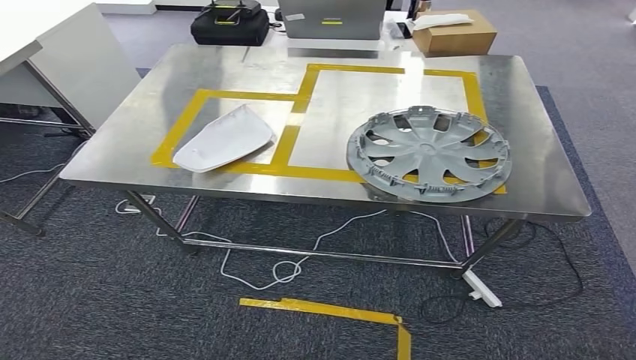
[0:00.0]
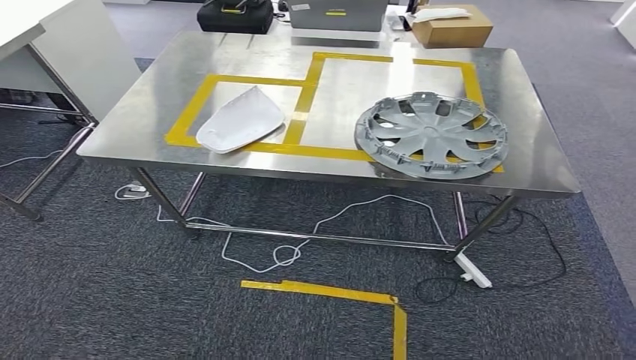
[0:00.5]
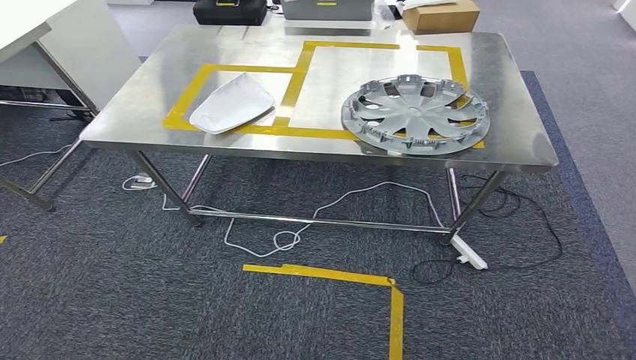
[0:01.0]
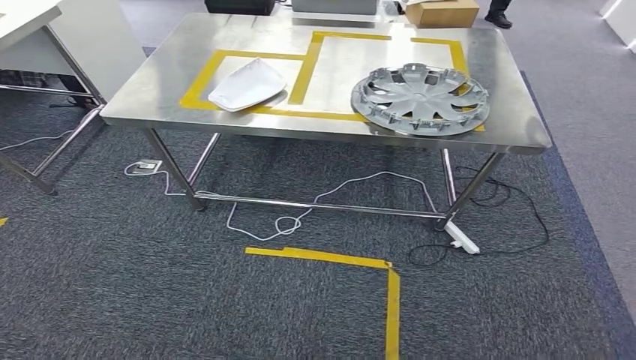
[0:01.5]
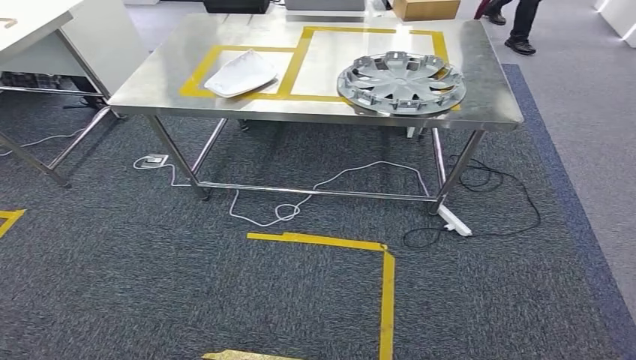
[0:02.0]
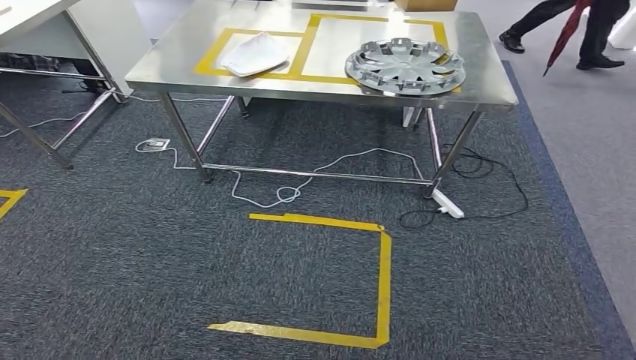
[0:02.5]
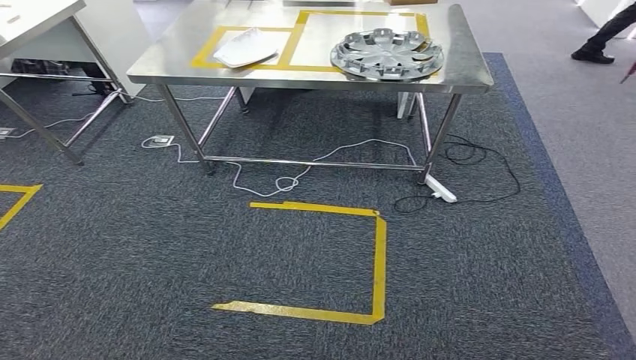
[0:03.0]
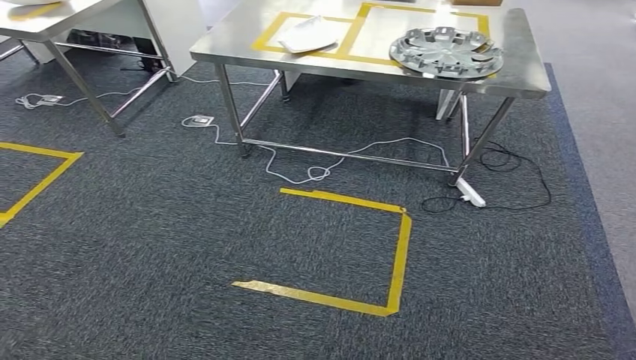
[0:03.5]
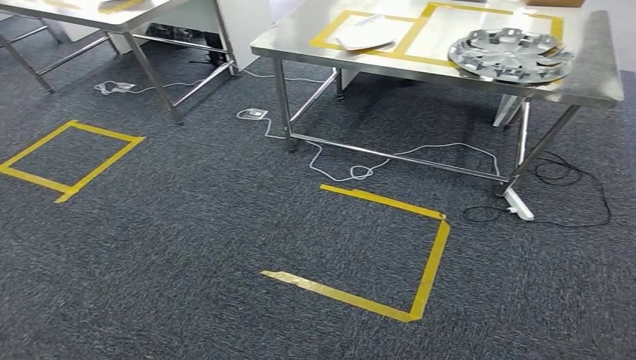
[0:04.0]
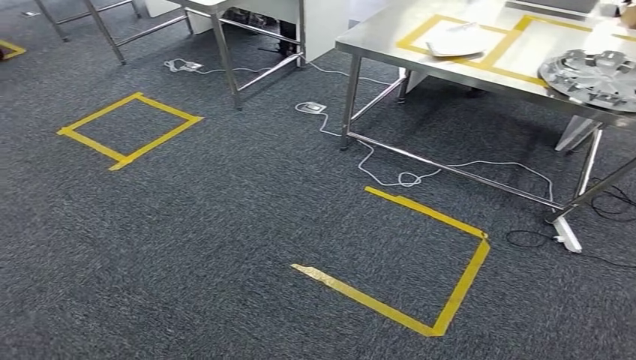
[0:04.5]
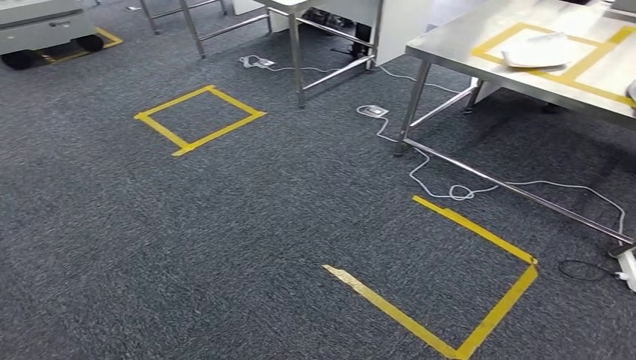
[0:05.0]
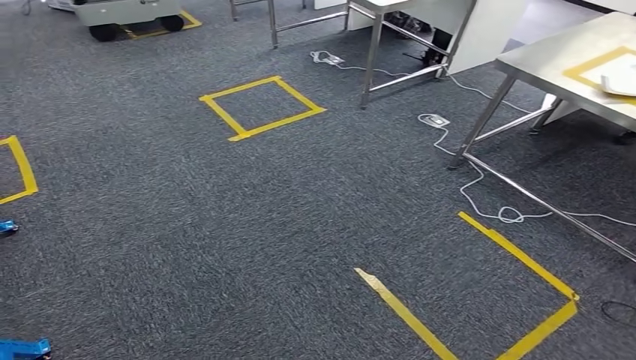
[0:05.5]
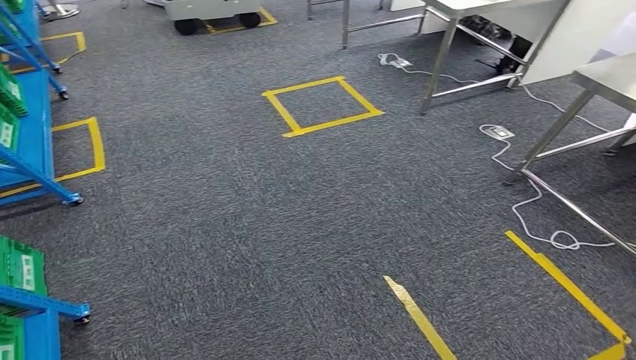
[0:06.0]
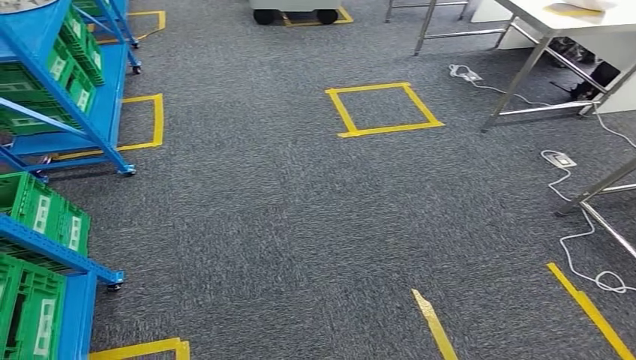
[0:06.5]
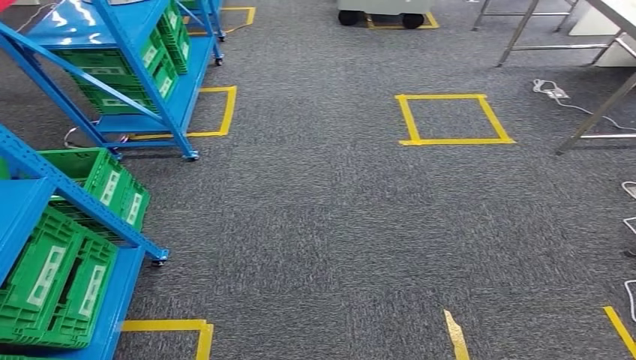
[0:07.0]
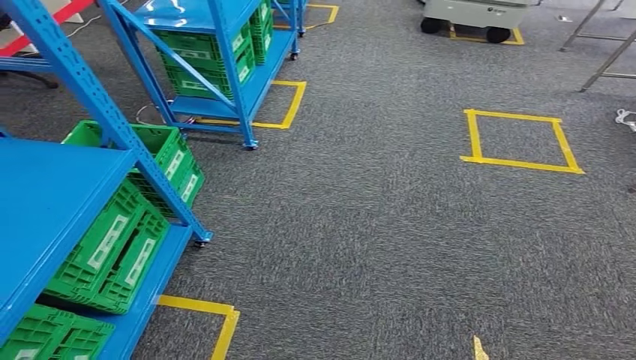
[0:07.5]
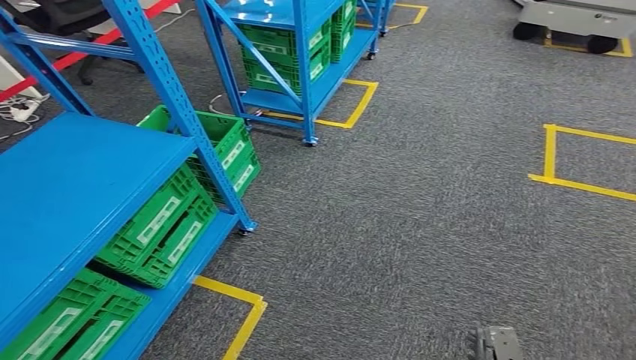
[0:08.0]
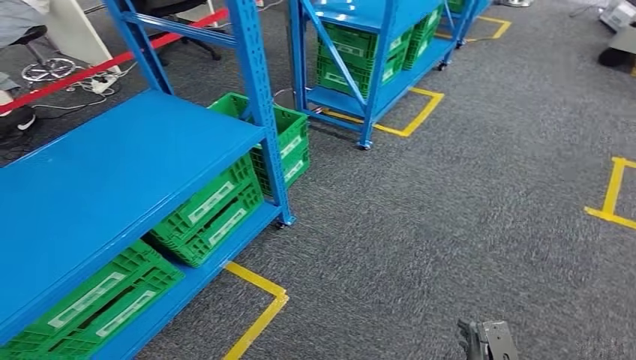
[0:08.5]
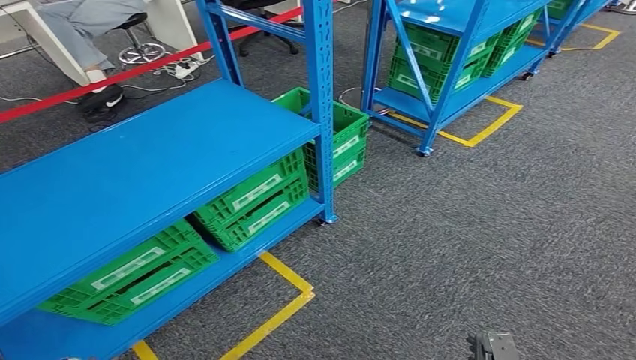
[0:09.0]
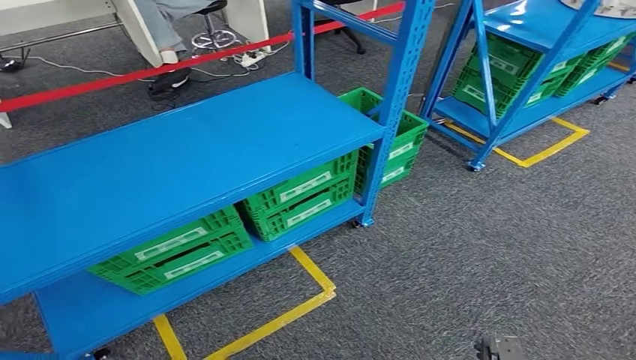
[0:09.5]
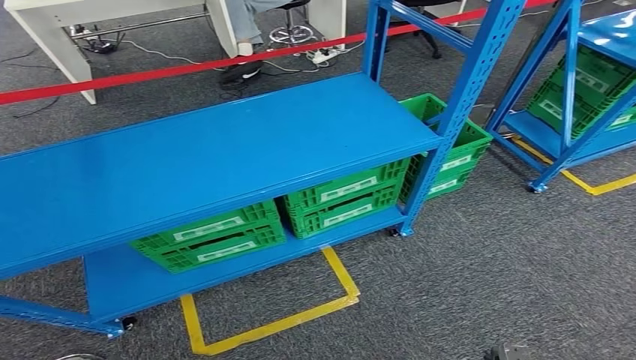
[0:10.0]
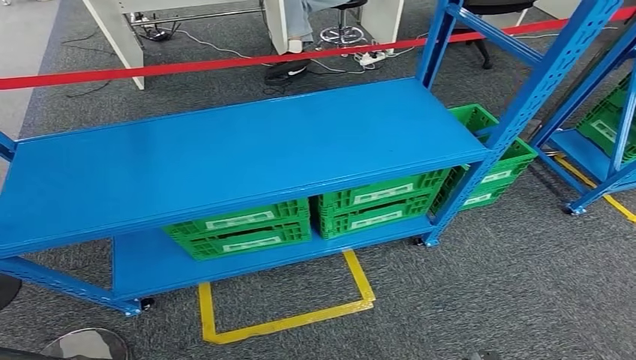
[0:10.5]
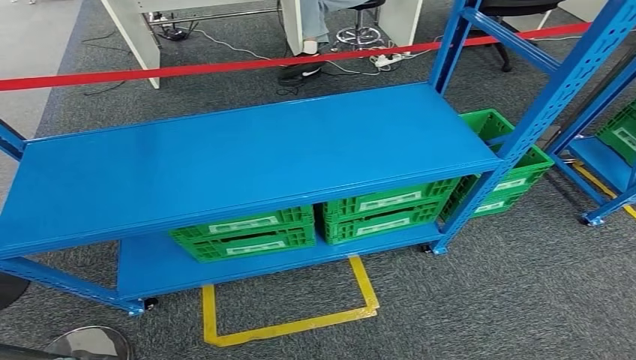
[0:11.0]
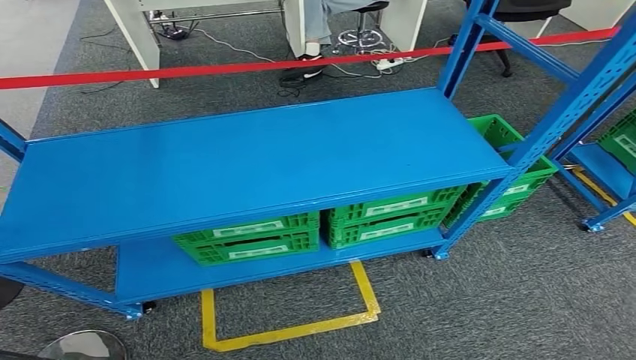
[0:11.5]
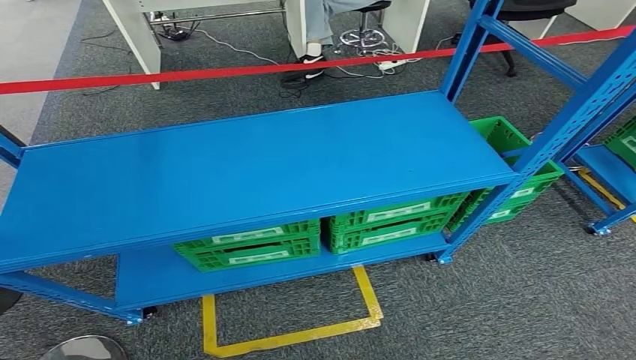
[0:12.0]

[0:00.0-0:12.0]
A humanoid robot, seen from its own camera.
Step, 0:00.0 to 0:11.5: Insert the small component into the corresponding slot on the workbench.

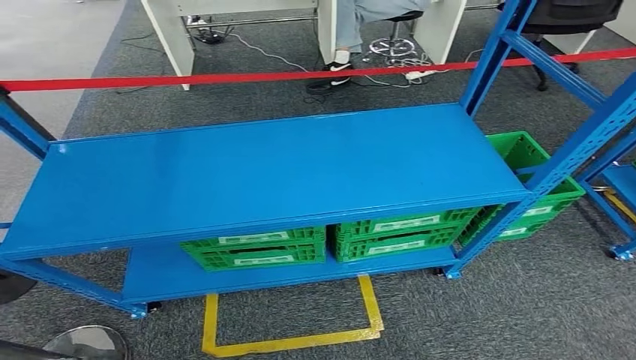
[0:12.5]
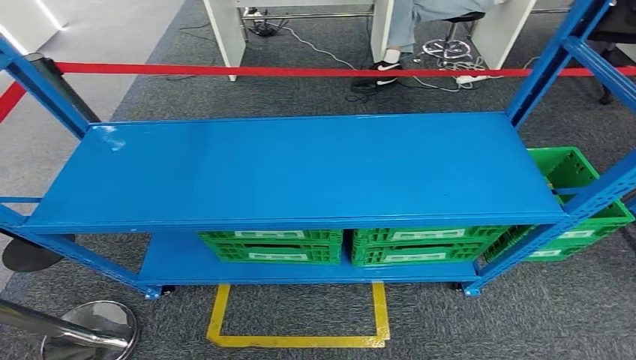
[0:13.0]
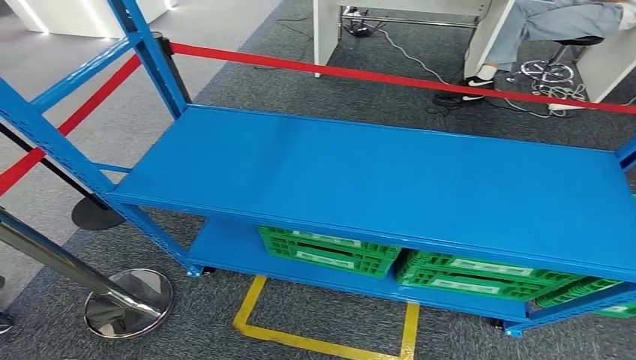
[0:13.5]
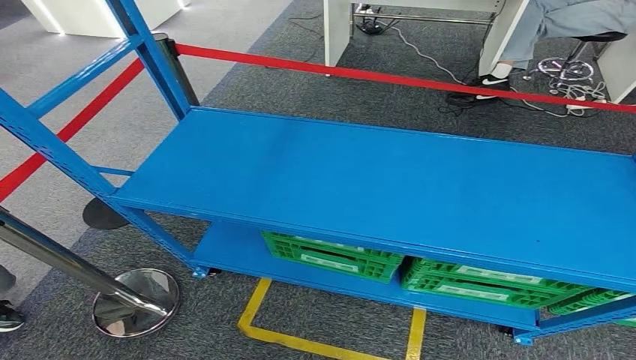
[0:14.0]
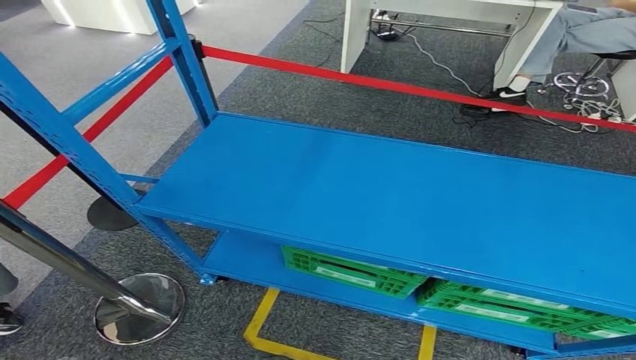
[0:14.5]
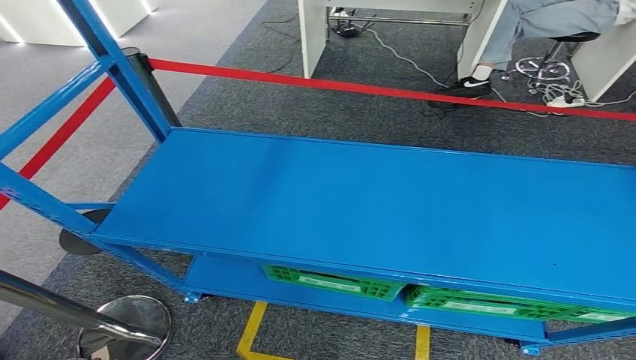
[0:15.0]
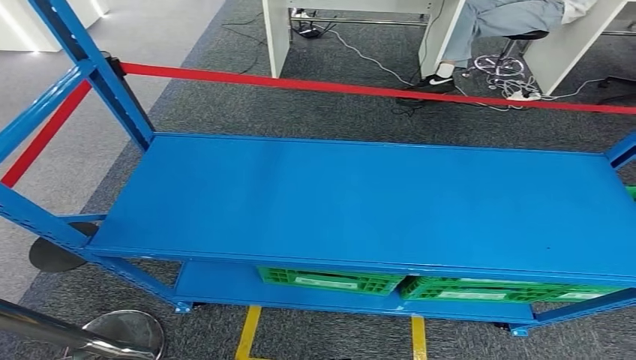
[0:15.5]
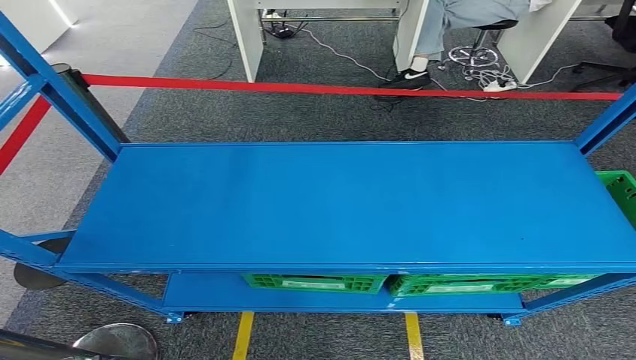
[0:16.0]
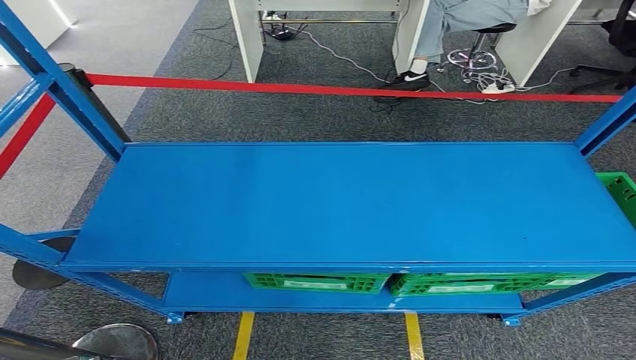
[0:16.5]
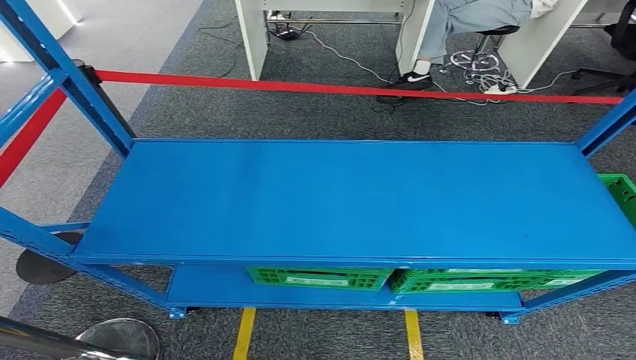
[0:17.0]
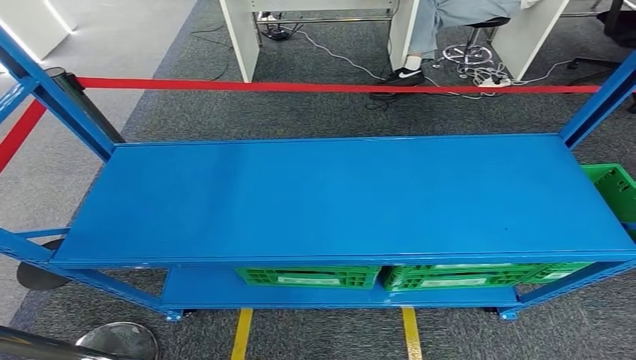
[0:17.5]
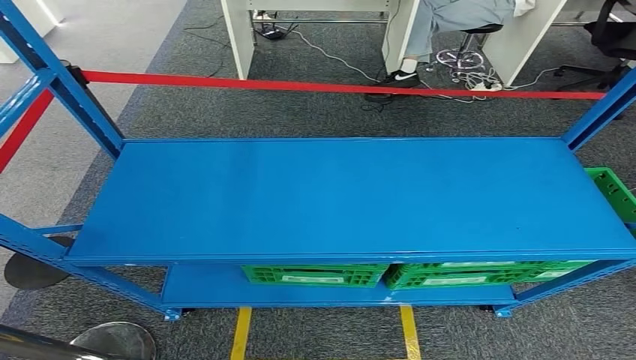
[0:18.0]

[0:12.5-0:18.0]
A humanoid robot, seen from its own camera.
Step, 0:12.5 to 0:18.0: Move to the initial position of the workbench.
0:16.0 to 0:18.0: Both hands stay put.
